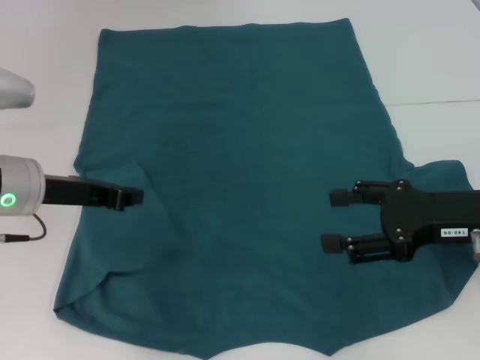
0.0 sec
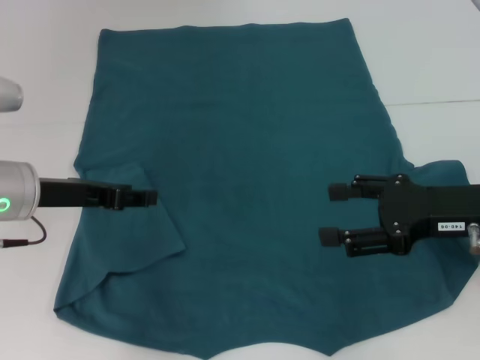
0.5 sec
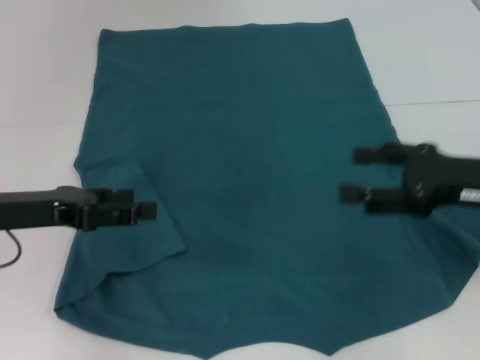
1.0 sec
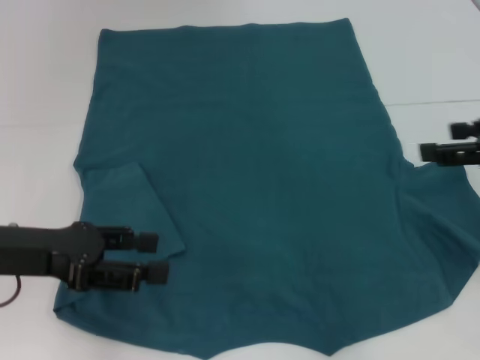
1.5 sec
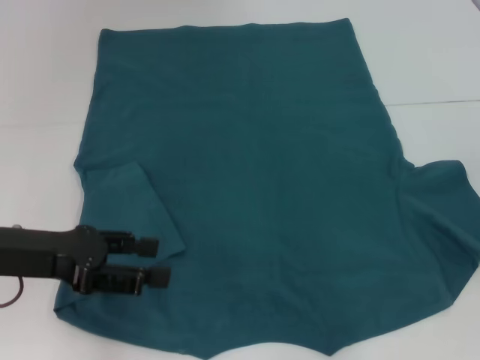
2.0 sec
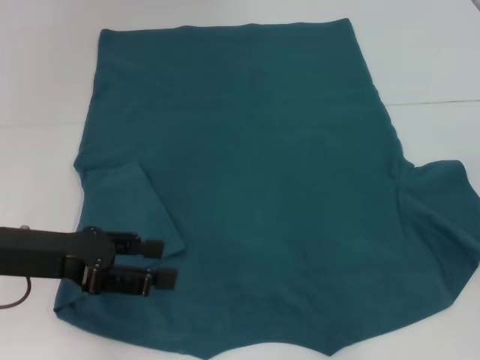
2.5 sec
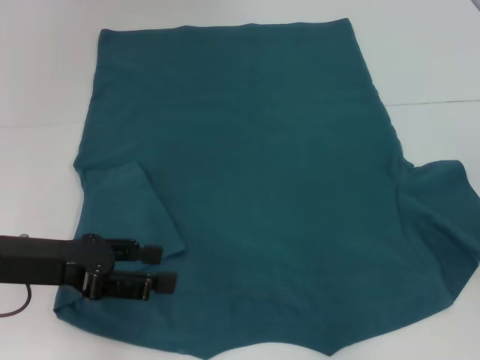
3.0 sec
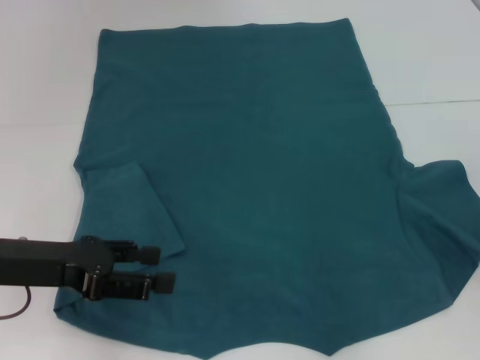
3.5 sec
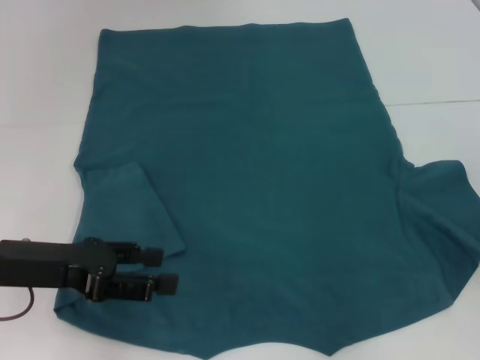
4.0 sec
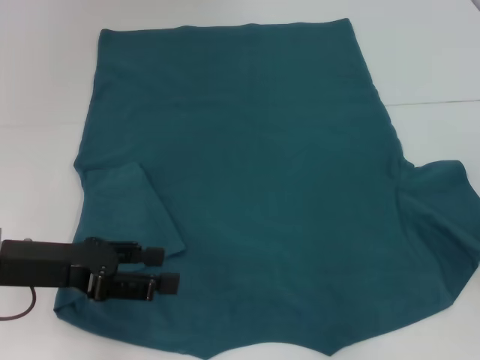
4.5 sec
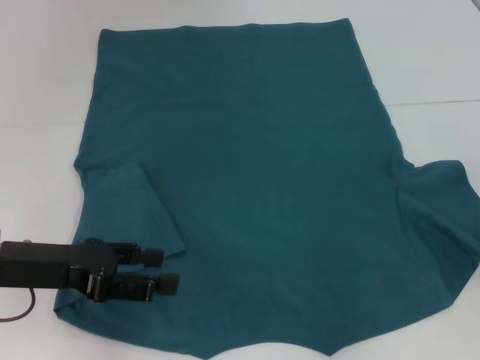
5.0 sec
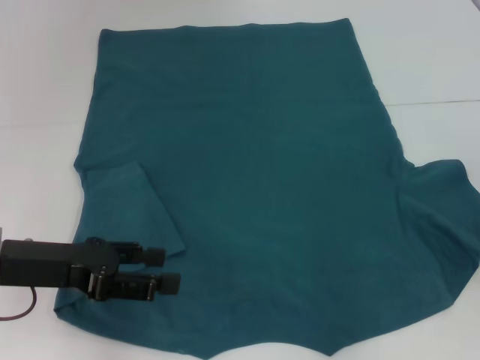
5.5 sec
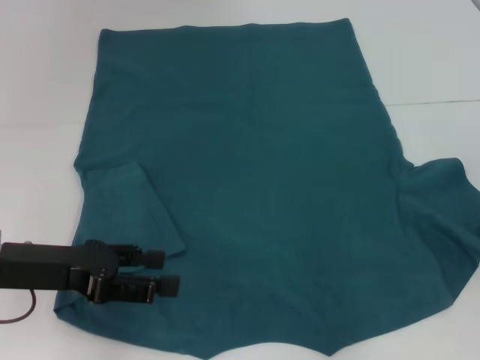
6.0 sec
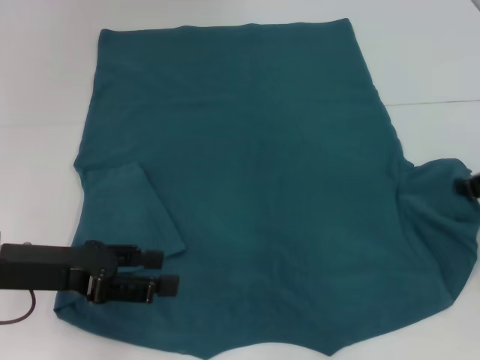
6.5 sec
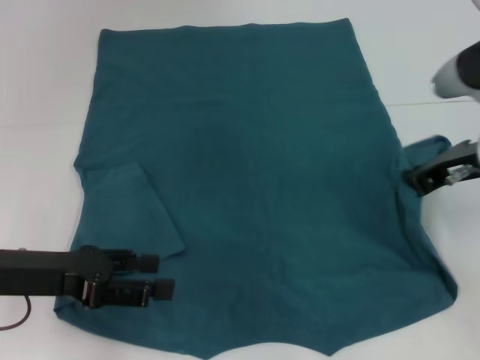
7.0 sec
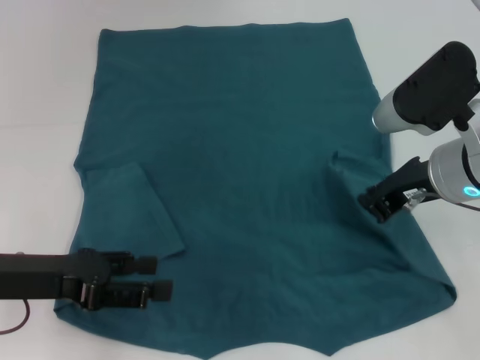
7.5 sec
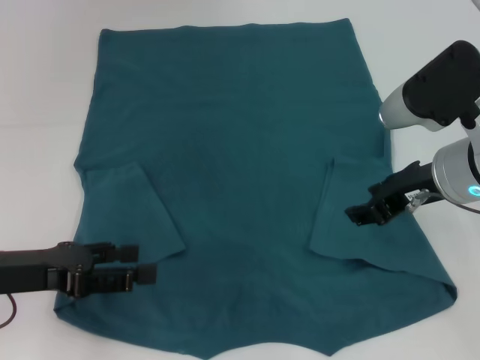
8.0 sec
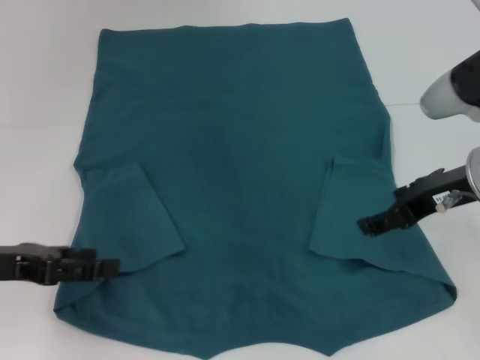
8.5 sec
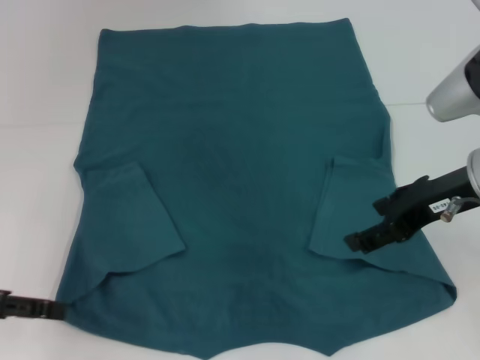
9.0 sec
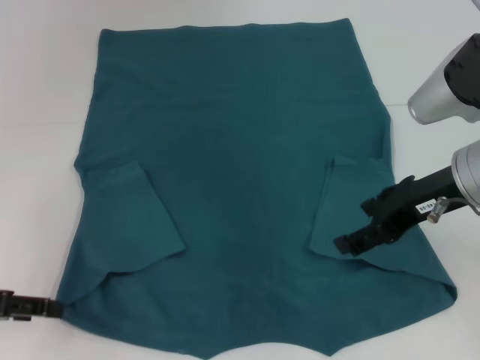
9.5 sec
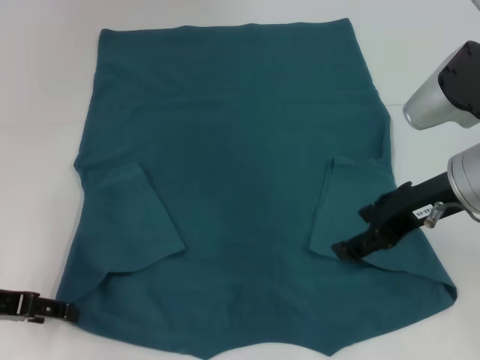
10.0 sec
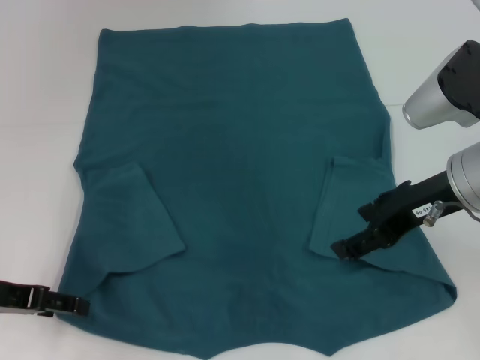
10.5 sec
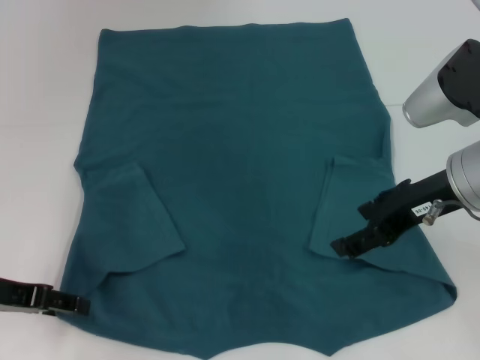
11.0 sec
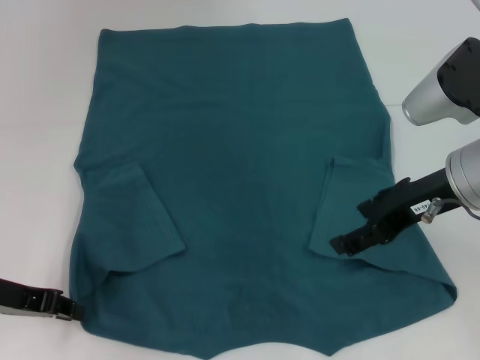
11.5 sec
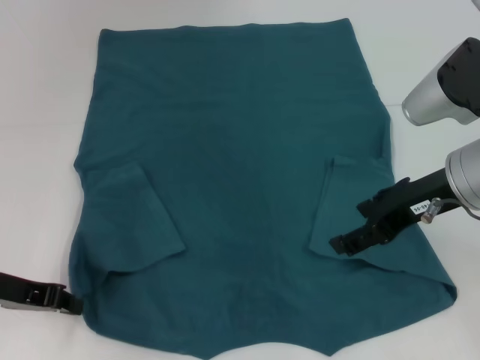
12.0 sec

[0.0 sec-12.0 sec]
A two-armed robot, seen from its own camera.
Step, 1.0 sec to 8.0 sec: Fold the bottom right sleeve to the right.
0.0 sec to 2.0 sec: The left gripper moves backward, about 5 cm, and opens its fingers. Meanwhile the right gripper is displaced to the right and upward by roughly 10 cm.
6.0 sec to 8.0 sec: The right gripper goes roughly 15 cm to the left.
8.0 sec to 10.0 sec: The right gripper opens up.
10.0 sec to 12.0 sec: The left gripper closes up.

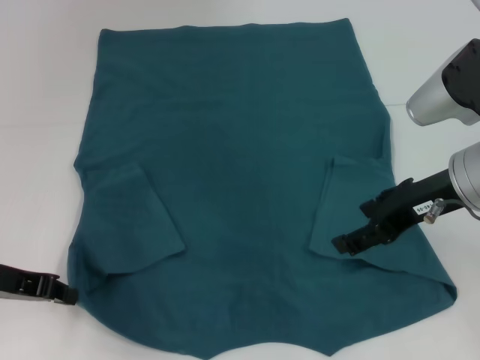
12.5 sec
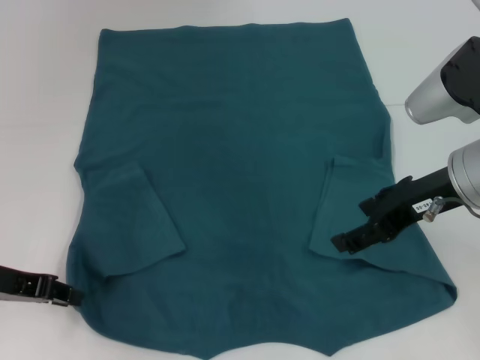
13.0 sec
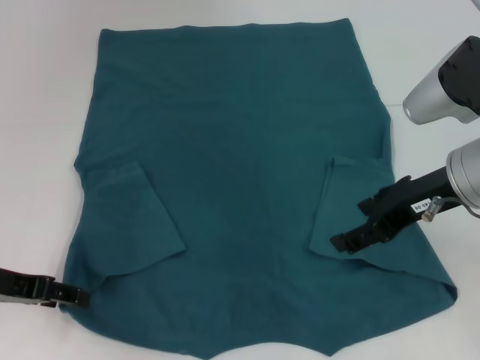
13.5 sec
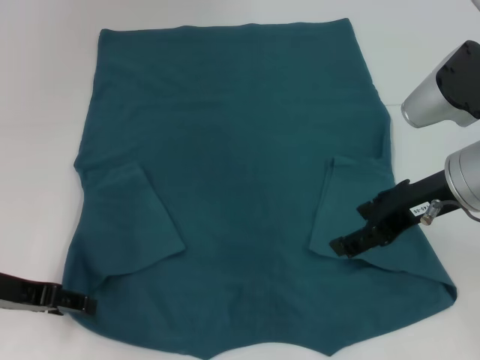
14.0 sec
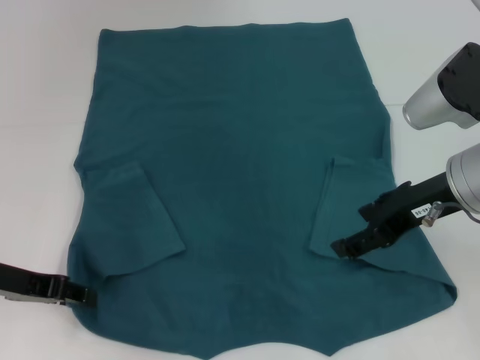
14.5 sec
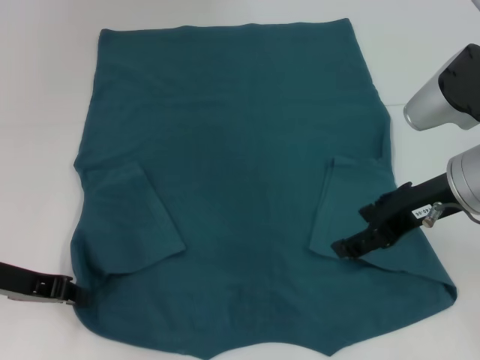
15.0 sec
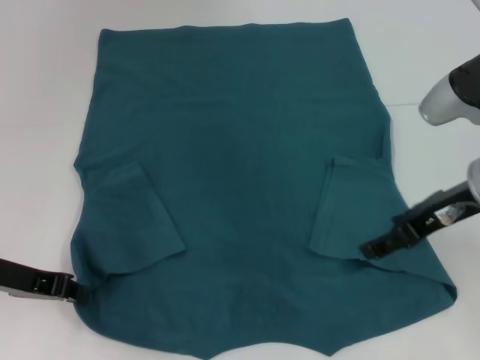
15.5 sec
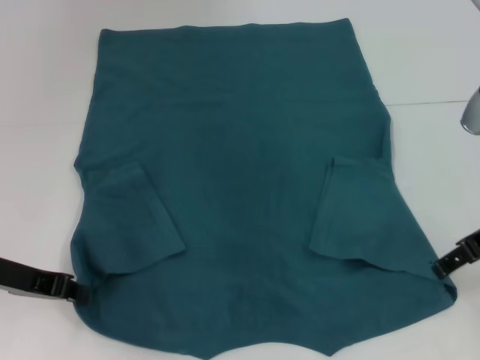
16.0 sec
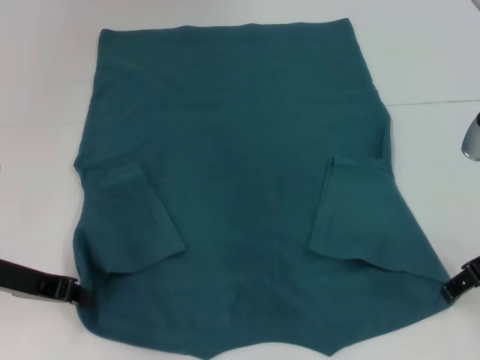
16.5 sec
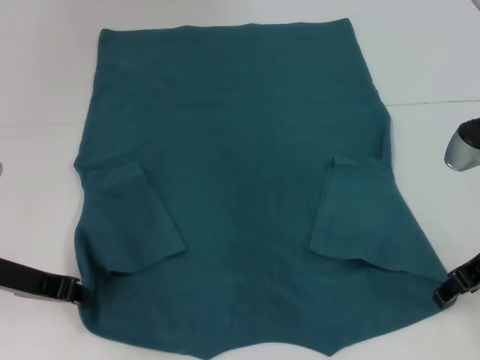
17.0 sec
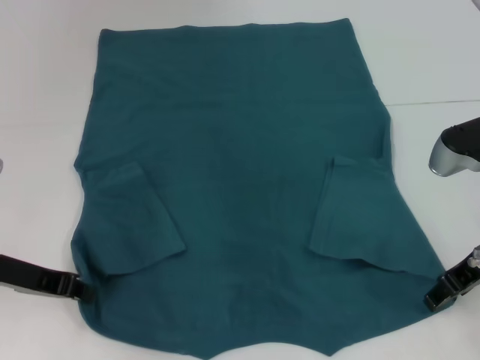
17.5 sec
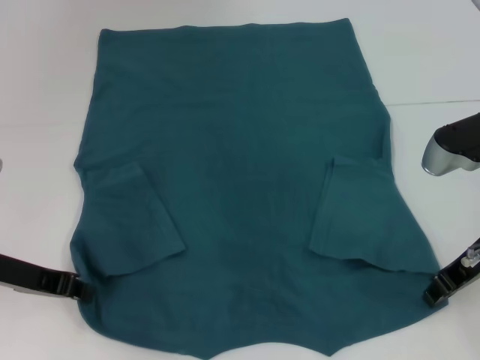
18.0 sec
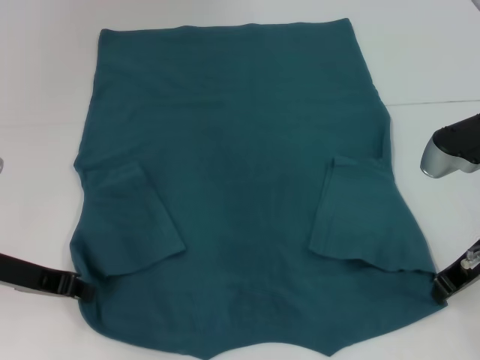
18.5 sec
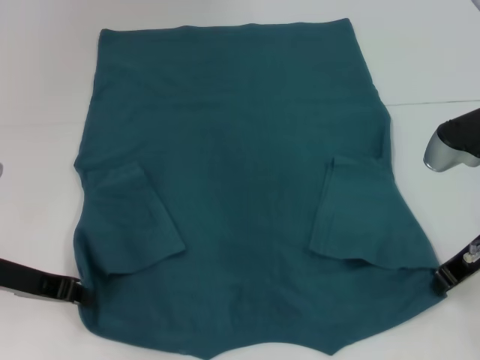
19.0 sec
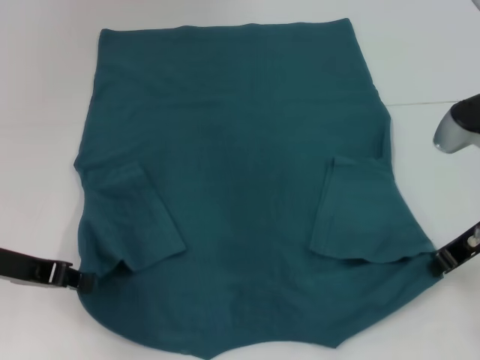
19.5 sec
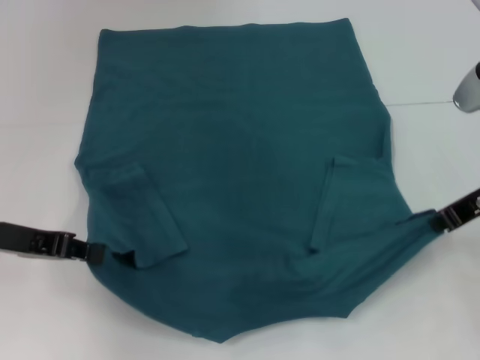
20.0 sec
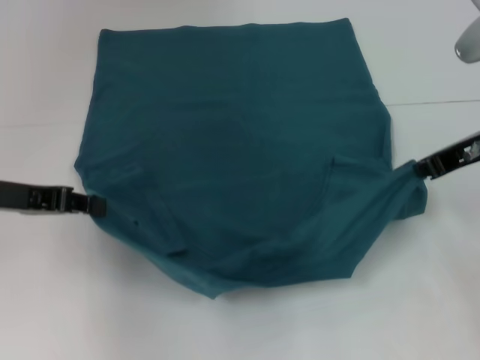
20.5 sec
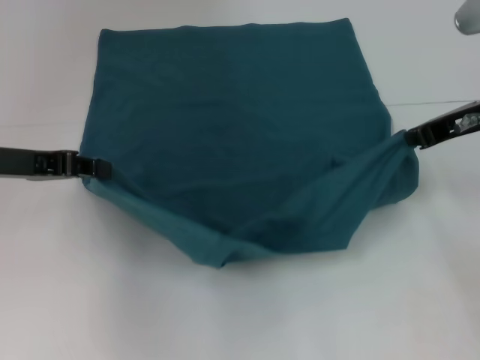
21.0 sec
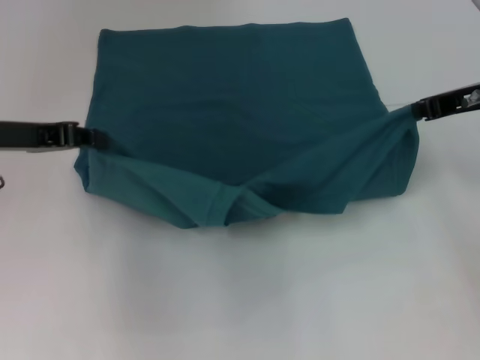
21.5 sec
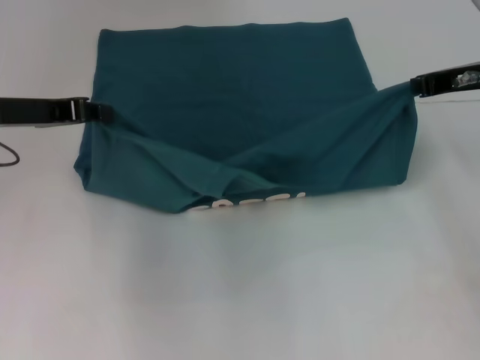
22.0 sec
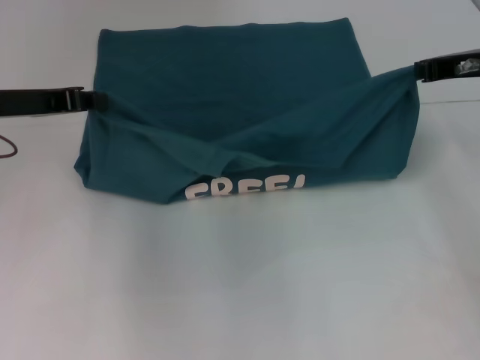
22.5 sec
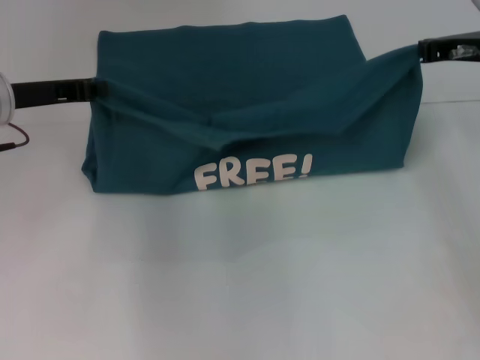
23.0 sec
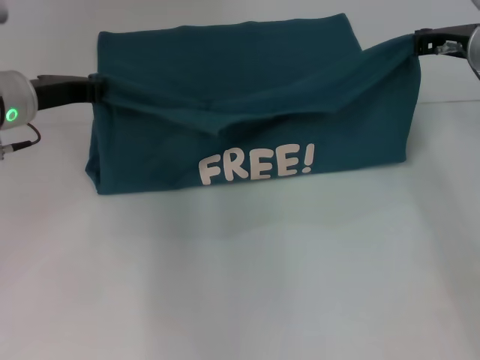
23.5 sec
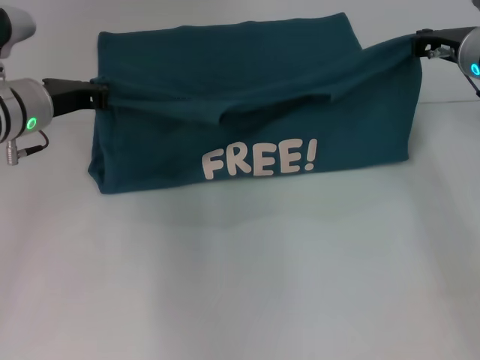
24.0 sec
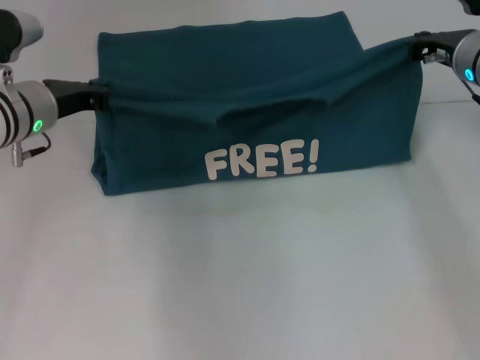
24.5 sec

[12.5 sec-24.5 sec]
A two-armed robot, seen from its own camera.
Step, 12.5 sec to 15.5 sec: Grab the bottom left corner with your left hand.
Step, 16.0 sec to 19.5 sec: Grab the bottom right corner with your right hand.
12.5 sec to 14.5 sec: The left gripper opens up.
14.5 sec to 16.5 sec: The left gripper closes its fingers. The right gripper heads to the right, covering about 5 cm.
16.5 sec to 18.5 sec: The right gripper closes its fingers.
18.5 sec to 20.5 sec: The two grippers go about 5 cm upward.
20.5 sec to 22.5 sec: The left gripper is displaced forward by approximately 5 cm, while the right gripper shifts by some 5 cm.
22.5 sec to 24.5 sec: The right gripper changes place by roughly 5 cm; the left gripper is displaced to the right by roughly 5 cm.

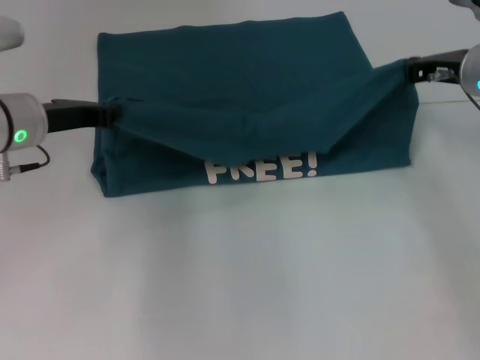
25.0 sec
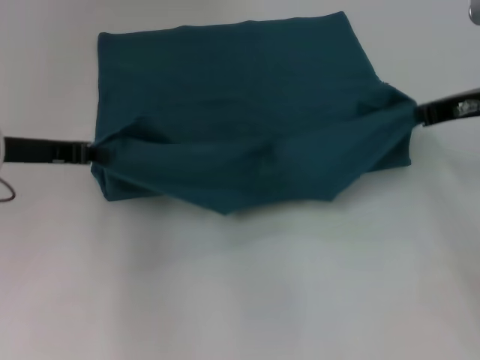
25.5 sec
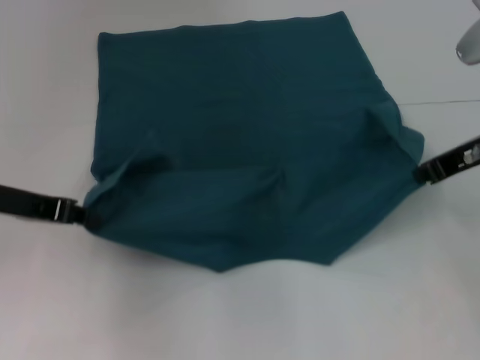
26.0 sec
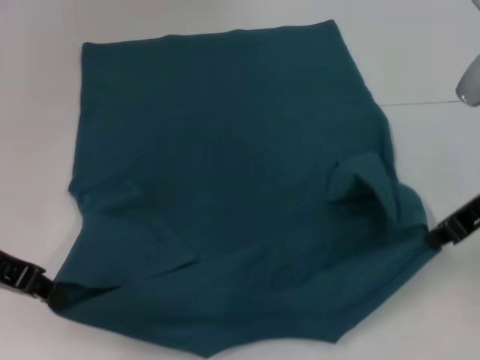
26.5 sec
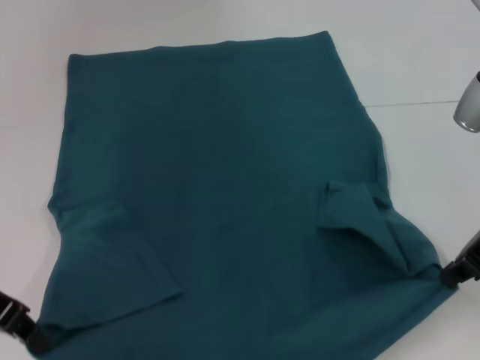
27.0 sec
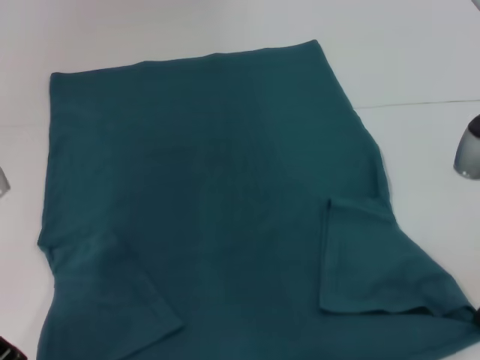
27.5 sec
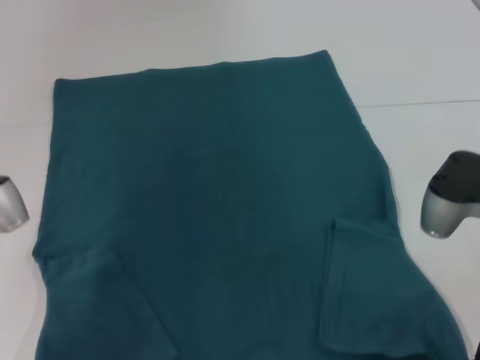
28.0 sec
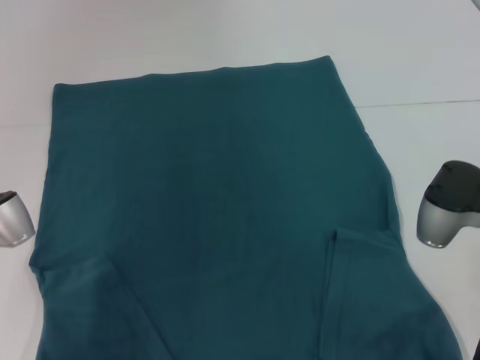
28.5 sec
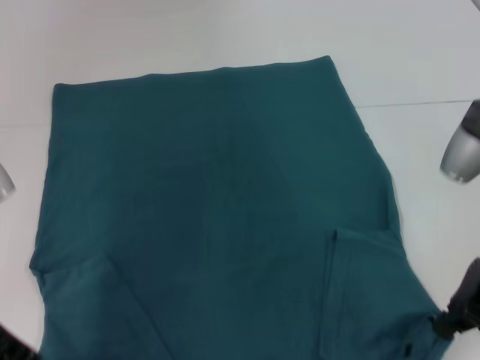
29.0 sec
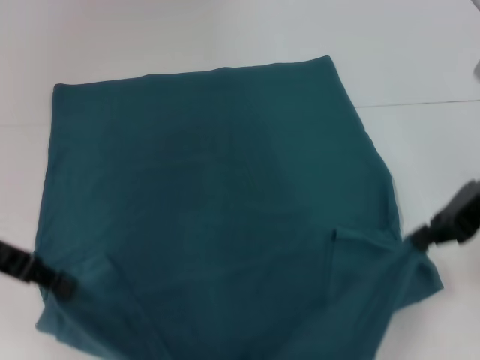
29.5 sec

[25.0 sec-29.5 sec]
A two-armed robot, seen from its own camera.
25.0 sec to 27.0 sec: The right gripper shifts some 10 cm backward, while the left gripper moves backward and to the left, some 10 cm.
